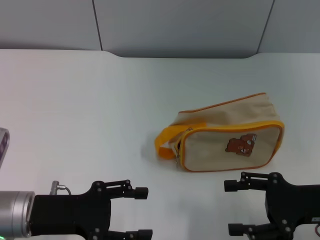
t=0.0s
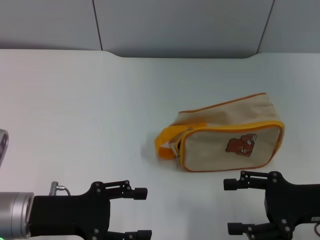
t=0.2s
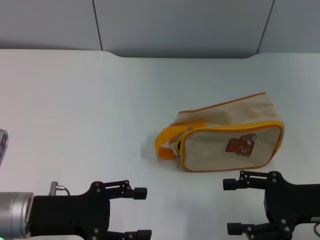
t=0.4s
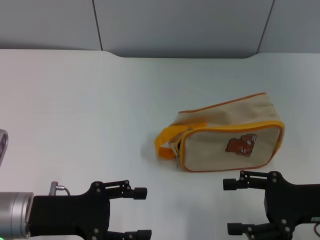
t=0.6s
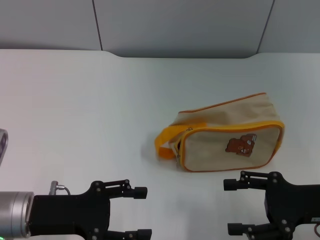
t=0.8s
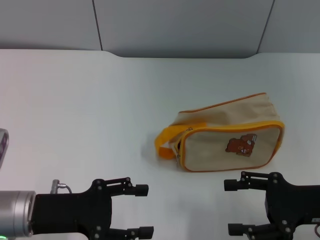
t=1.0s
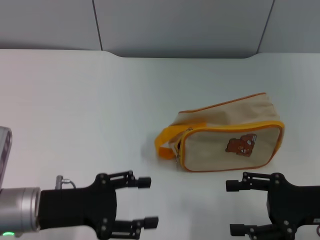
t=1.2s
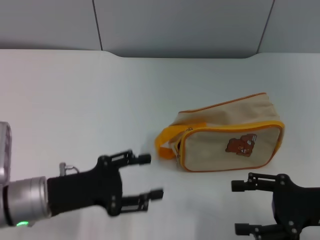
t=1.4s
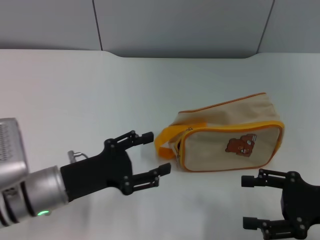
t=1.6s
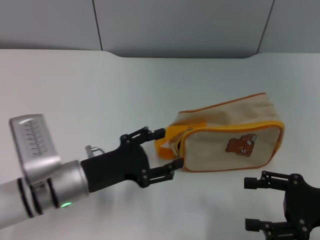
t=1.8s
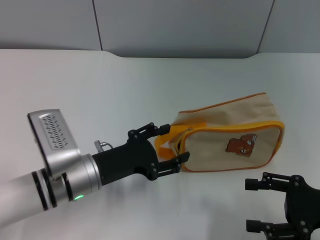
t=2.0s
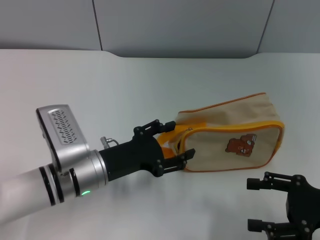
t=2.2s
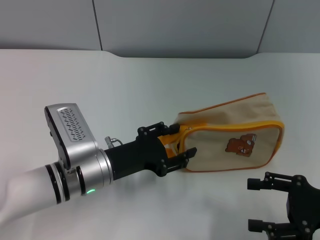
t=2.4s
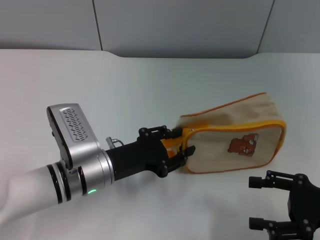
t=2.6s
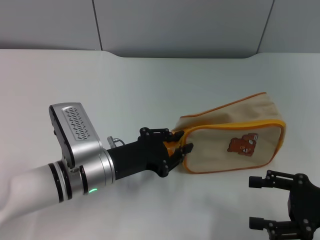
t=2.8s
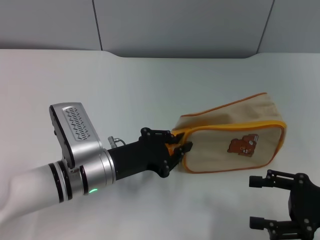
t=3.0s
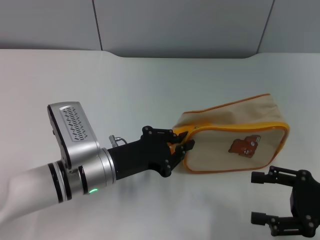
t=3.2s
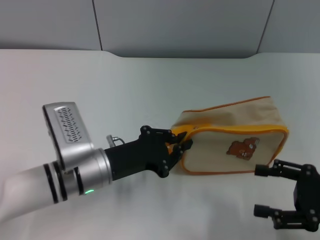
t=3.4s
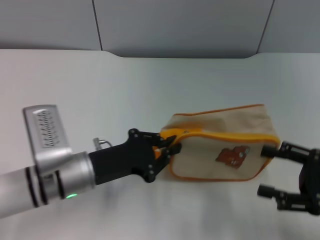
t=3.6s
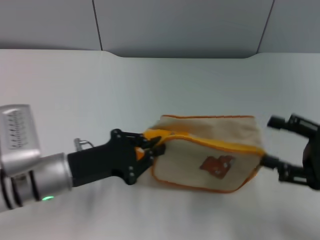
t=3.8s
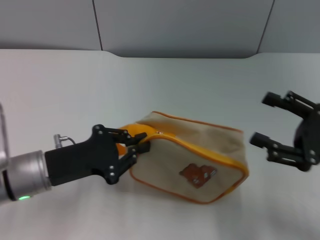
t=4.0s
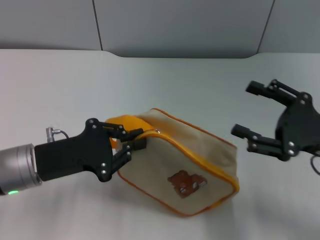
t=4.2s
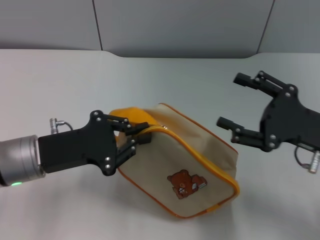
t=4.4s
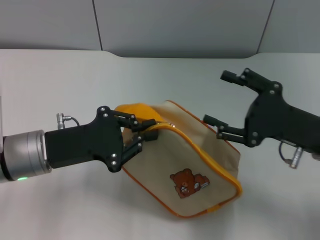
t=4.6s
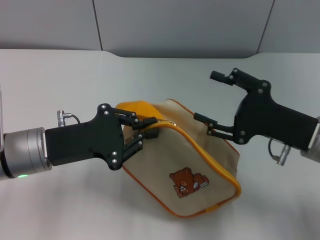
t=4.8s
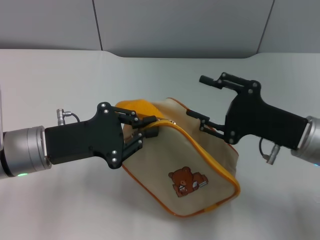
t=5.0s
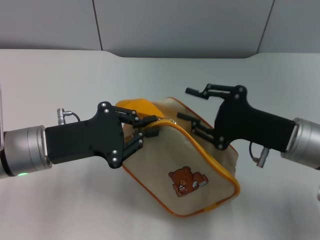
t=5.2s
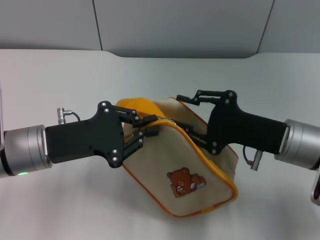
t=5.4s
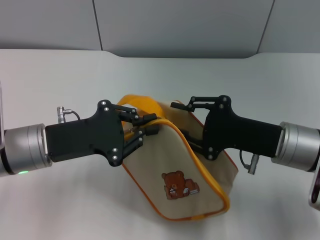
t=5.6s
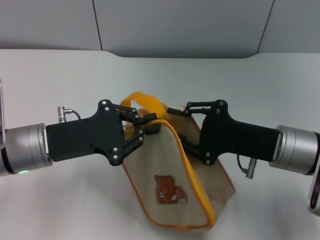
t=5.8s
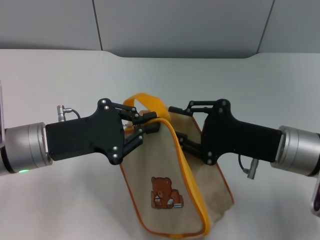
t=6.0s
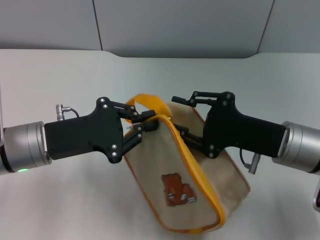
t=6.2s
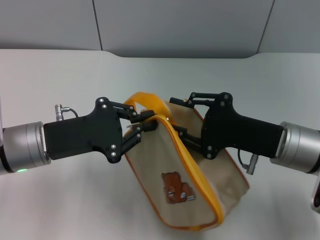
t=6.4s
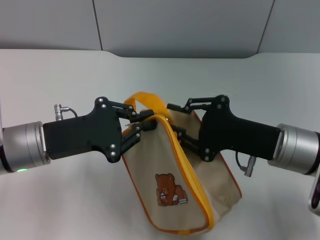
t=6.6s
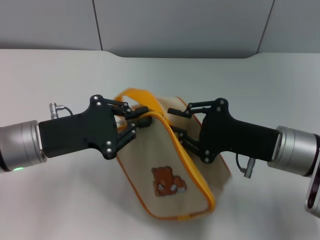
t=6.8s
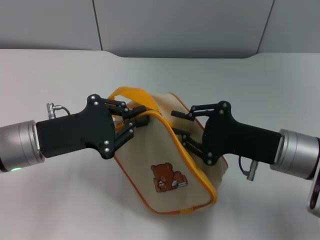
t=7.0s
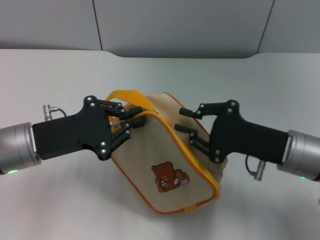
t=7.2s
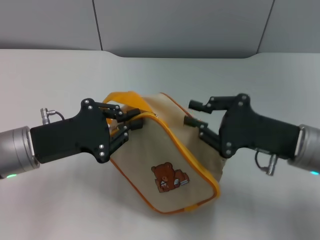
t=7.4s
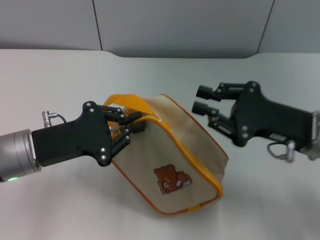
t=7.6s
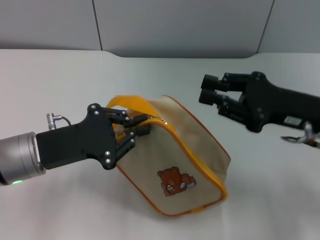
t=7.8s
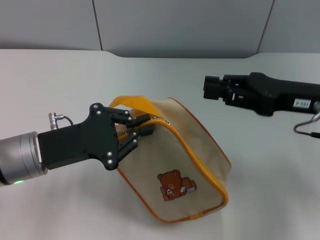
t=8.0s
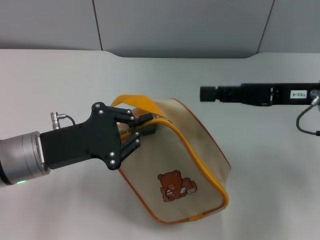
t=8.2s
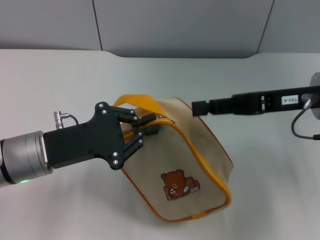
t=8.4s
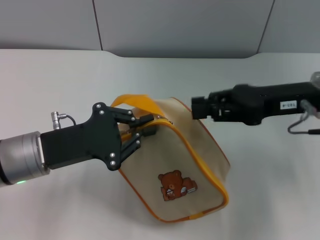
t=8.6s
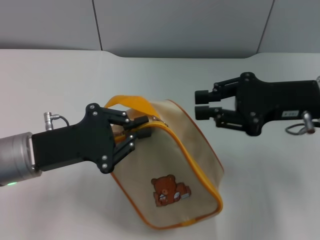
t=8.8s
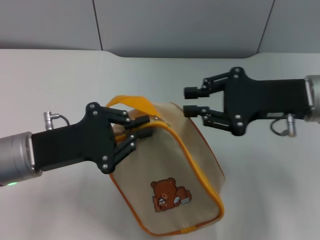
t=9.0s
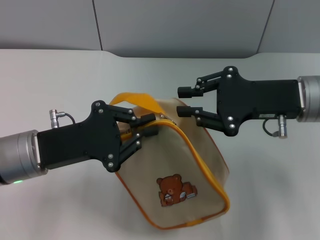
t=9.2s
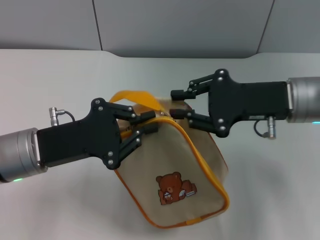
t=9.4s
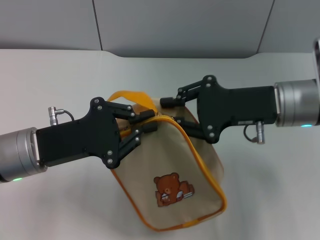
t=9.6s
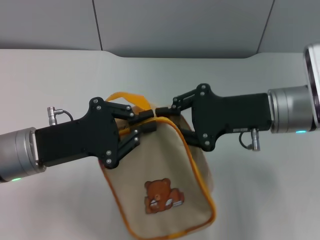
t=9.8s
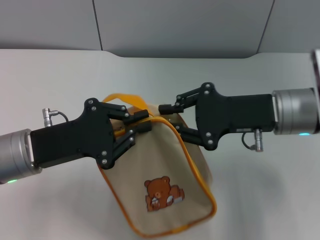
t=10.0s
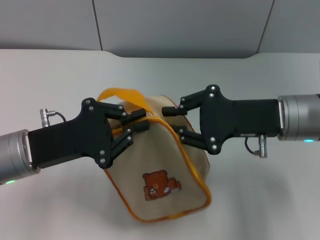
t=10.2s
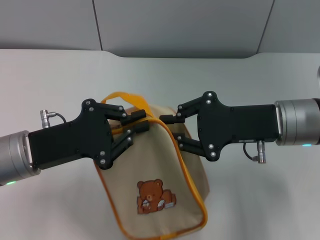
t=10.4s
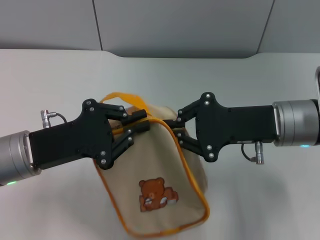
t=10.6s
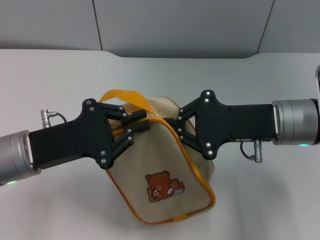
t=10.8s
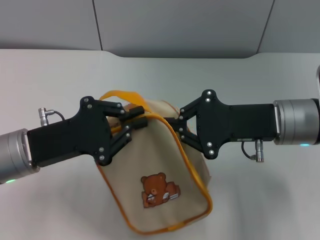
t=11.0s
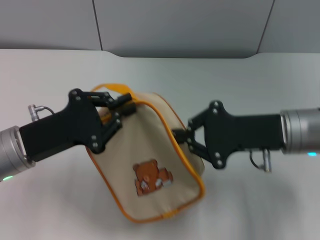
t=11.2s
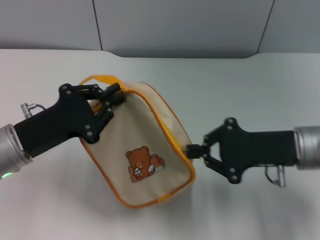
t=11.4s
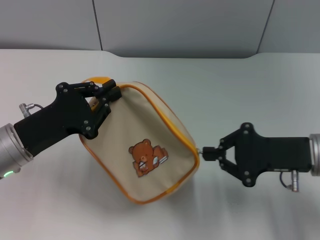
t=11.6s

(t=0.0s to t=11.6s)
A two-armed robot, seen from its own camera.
Step, t=0.0s - t=4.0s: Pick up the bag with left gripper.
t=0.0s - t=1.4s: There are only small adjustments of the grippers.
t=1.4s - t=2.8s: The left gripper is displaced to the right by approximately 5 cm, and closes up.
t=2.8s - t=4.4s: The right gripper shifts about 5 cm forward. Meanwhile the left gripper moves to the left and upward, some 10 cm, and closes.
t=4.4s - t=5.8s: The right gripper moves to the left, approximately 5 cm, and closes.
t=5.8s - t=7.2s: There are only small adjustments of the grippers.
t=7.2s - t=8.8s: The right gripper is displaced upward by roughly 10 cm.
t=8.8s - t=10.2s: The right gripper moves roughly 5 cm.
t=10.2s - t=11.6s: The right gripper ends up approximately 5 cm from where it was.

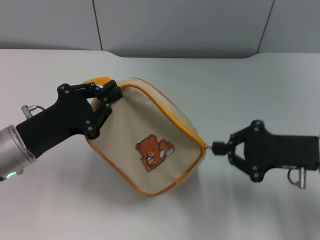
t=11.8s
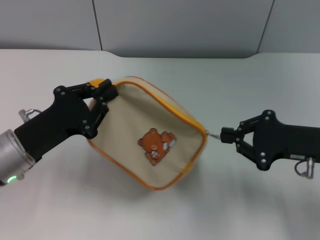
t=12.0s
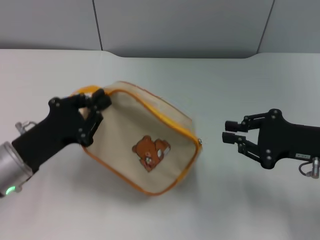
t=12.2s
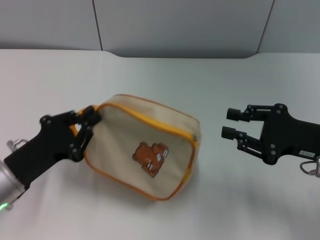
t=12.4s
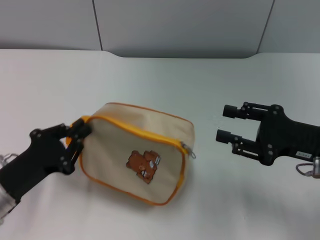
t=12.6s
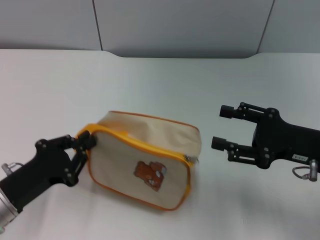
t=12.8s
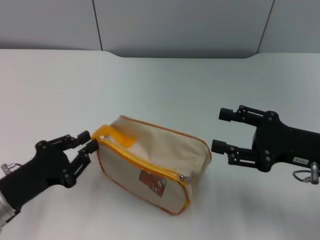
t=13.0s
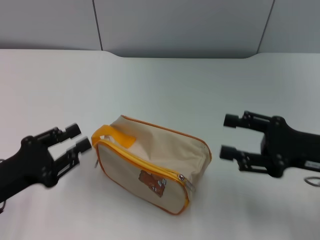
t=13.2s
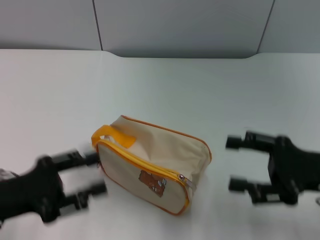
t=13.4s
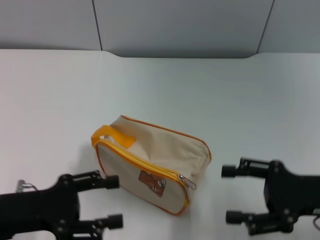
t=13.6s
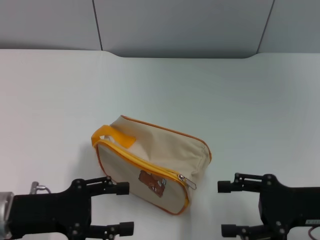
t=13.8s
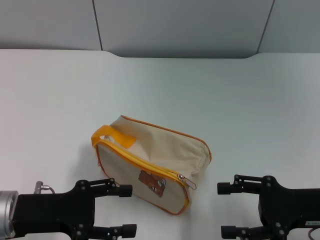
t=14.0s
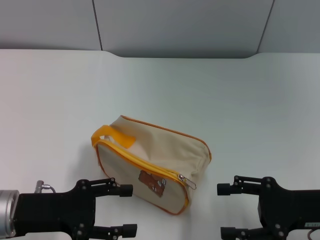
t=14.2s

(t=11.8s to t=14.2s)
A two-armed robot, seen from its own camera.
Step, t=12.2s - t=13.2s: Place the bag on the table with left gripper.
t=11.8s - t=13.0s: The left gripper is displaced backward by about 5 cm. The right gripper opens.
t=13.0s - t=14.2s: The left gripper opens up.

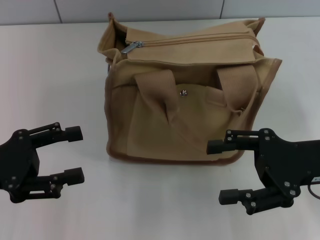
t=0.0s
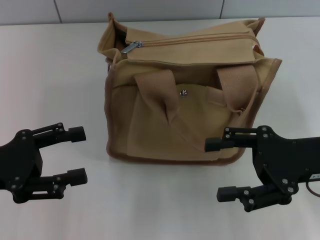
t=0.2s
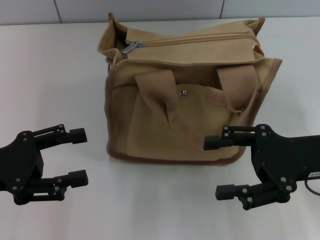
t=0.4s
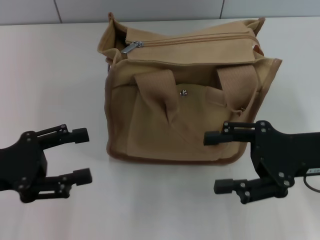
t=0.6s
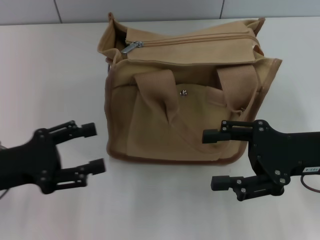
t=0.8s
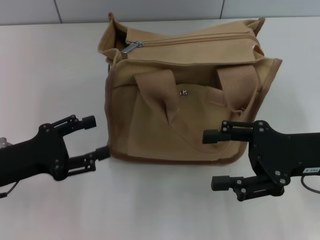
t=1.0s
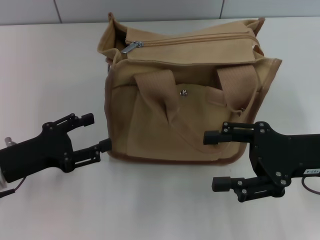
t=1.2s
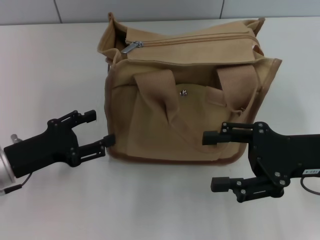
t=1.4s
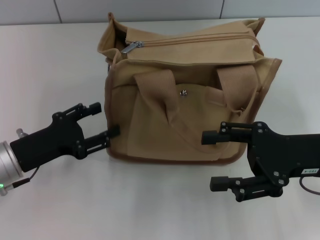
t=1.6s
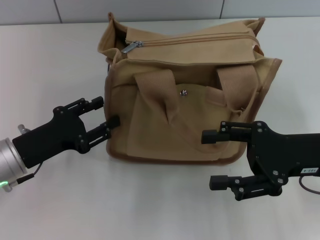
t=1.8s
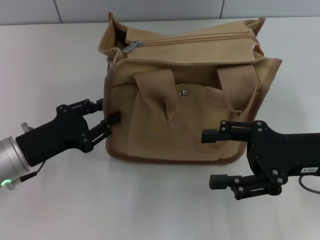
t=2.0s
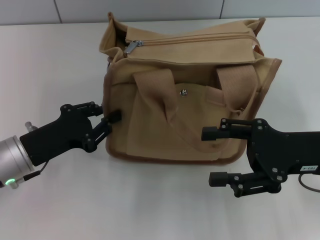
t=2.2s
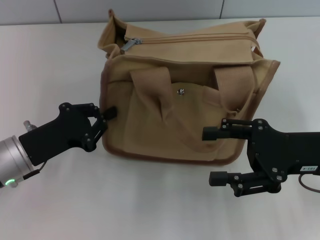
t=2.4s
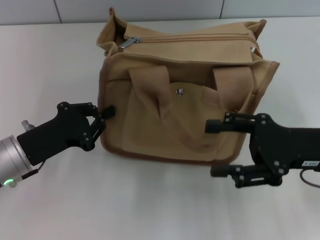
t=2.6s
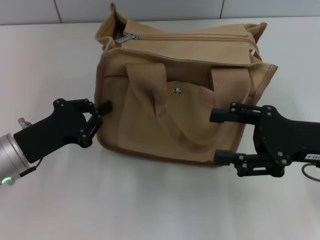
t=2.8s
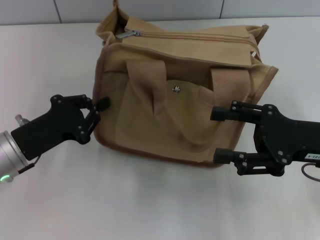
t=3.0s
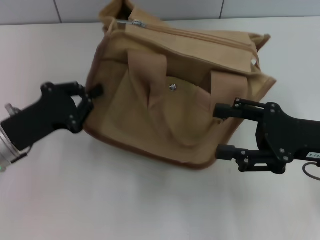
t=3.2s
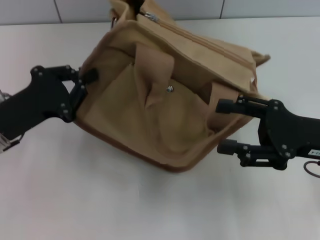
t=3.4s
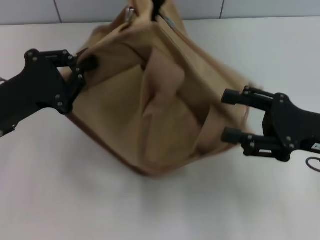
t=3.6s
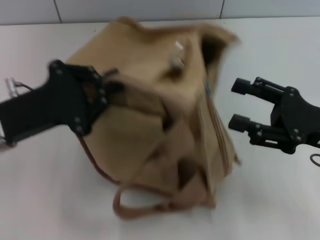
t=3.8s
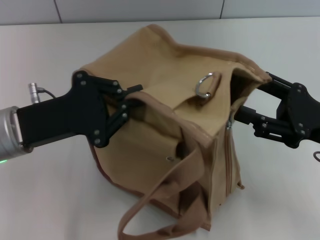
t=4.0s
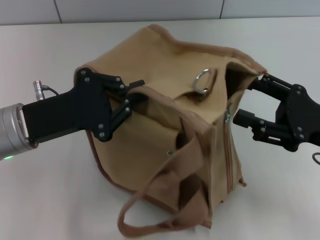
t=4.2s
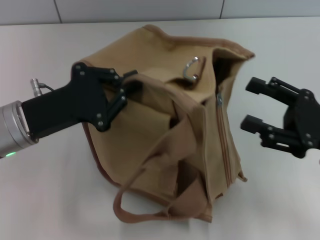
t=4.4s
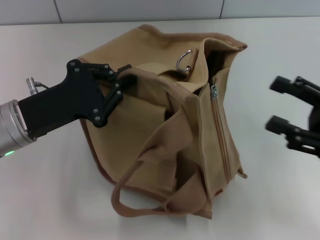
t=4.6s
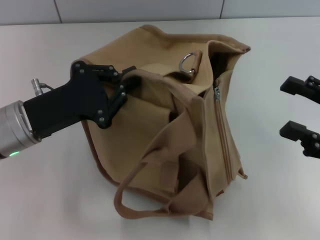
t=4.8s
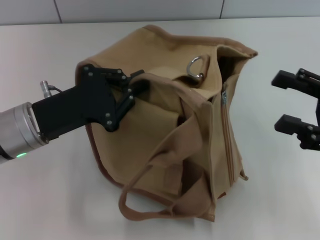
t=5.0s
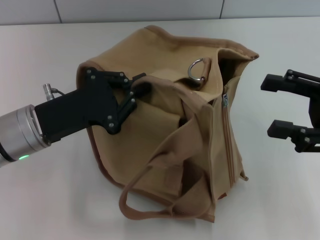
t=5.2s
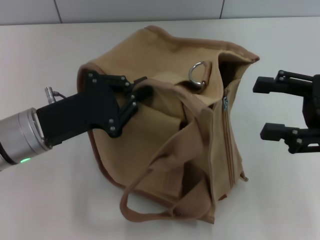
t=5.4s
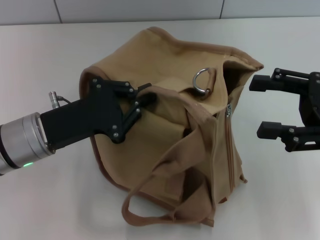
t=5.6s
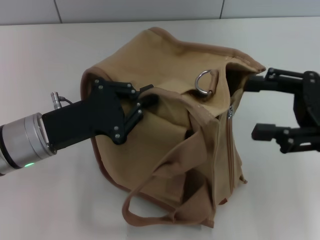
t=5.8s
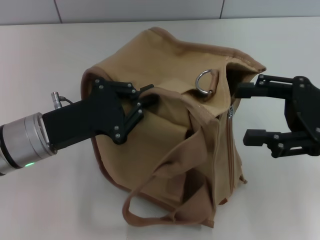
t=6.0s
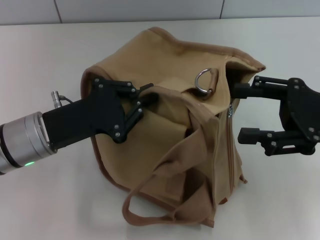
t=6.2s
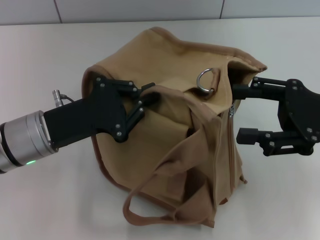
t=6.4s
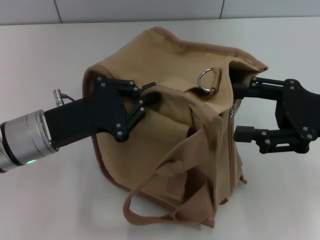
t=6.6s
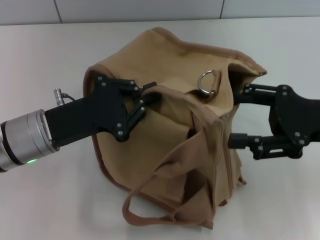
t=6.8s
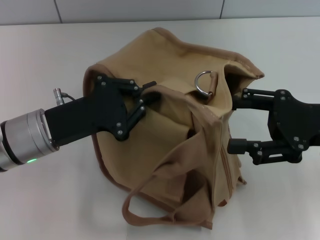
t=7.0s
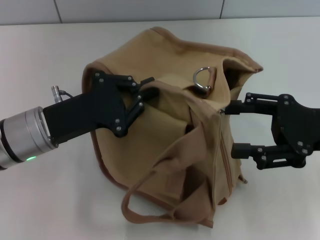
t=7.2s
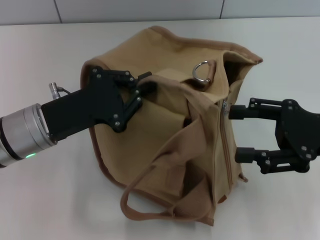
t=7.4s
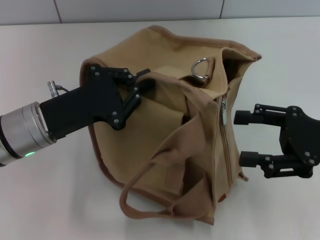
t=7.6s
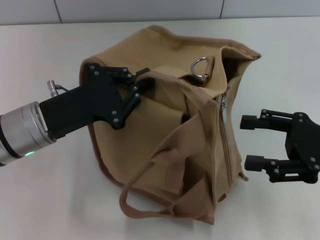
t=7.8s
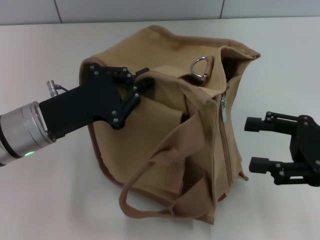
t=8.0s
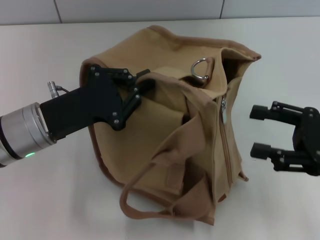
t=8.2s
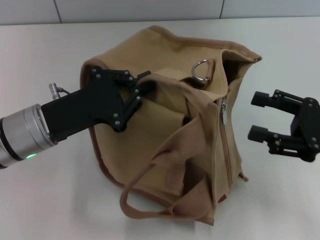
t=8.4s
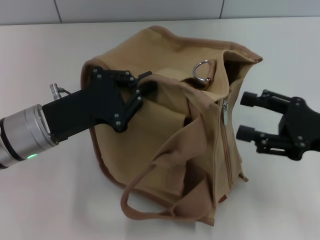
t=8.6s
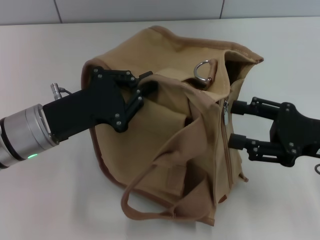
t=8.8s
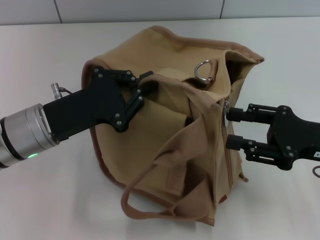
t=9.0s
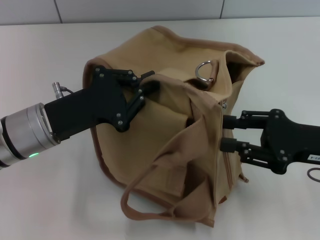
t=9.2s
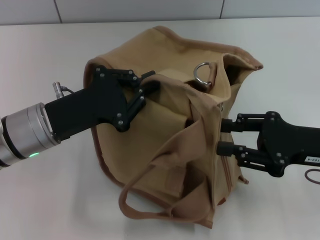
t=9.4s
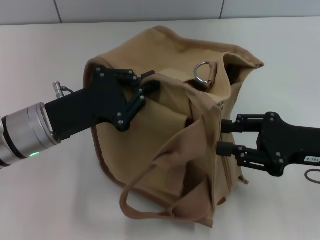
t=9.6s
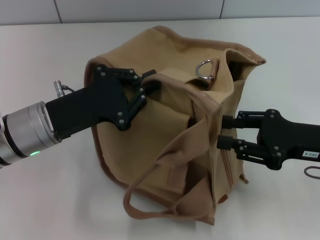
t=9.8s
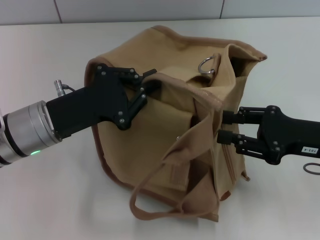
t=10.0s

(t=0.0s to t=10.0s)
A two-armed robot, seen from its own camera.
t=0.0s - t=1.4s: The left gripper is displaced downward by some 5 cm.
t=1.4s - t=2.8s: The left gripper closes.
t=2.8s - t=4.2s: The left gripper moves upward, about 5 cm.
t=4.2s - t=5.8s: The right gripper goes roughly 5 cm upward.
t=5.8s - t=8.6s: There are only small adjustments of the grippers.
t=8.6s - t=10.0s: The right gripper closes up.
